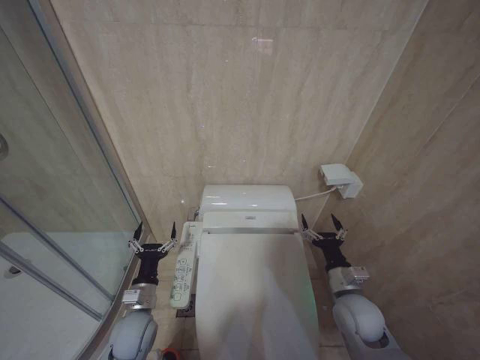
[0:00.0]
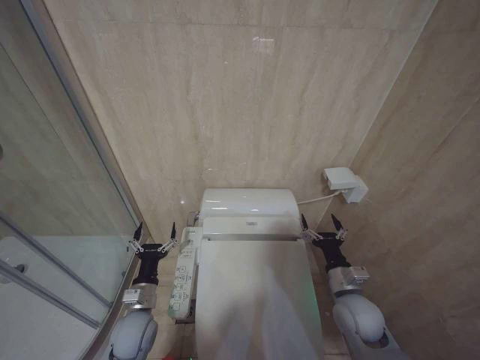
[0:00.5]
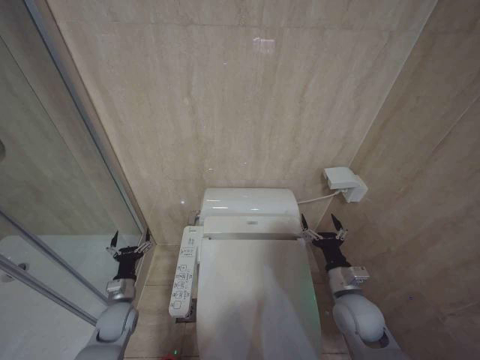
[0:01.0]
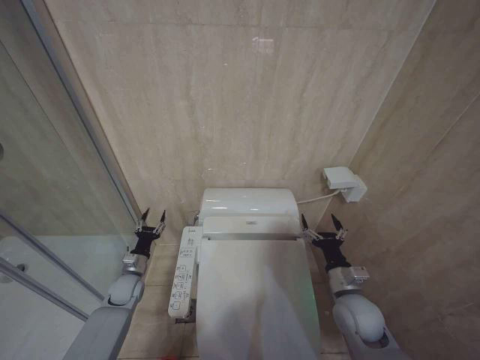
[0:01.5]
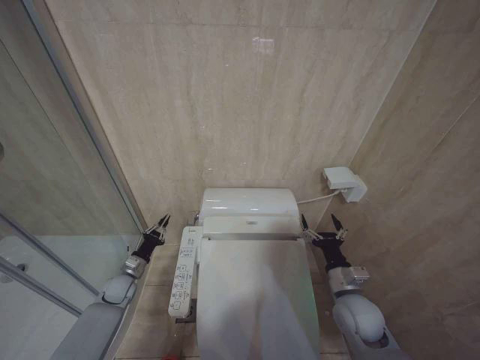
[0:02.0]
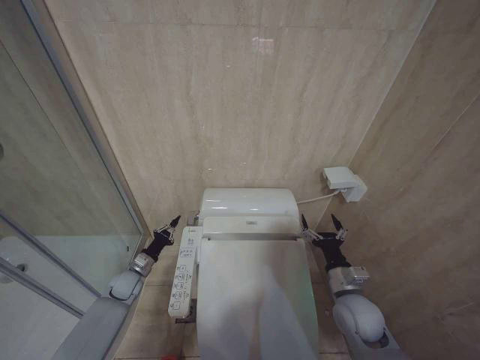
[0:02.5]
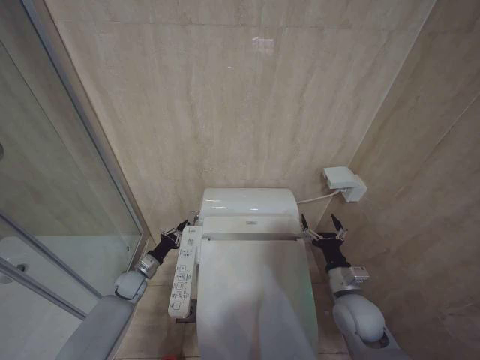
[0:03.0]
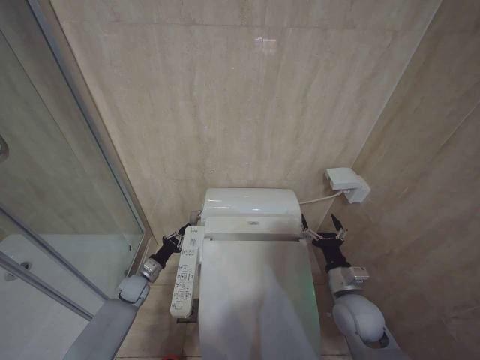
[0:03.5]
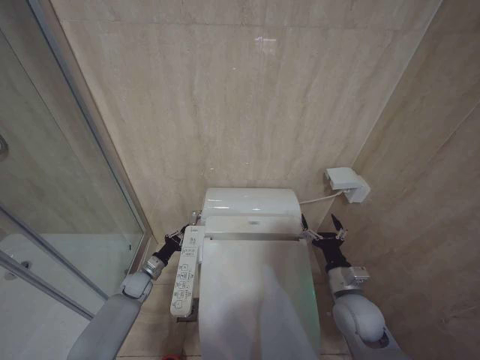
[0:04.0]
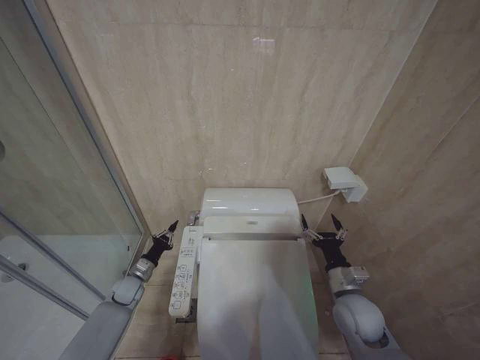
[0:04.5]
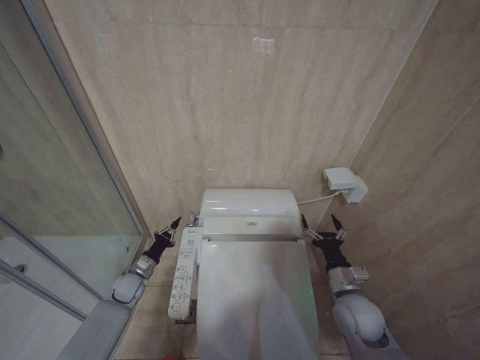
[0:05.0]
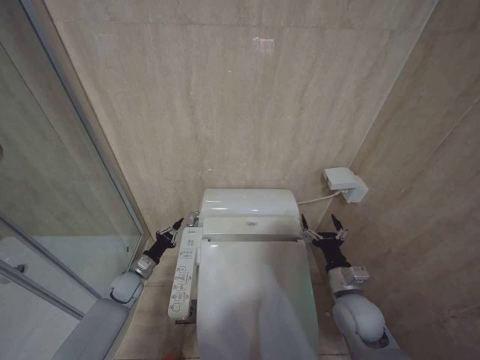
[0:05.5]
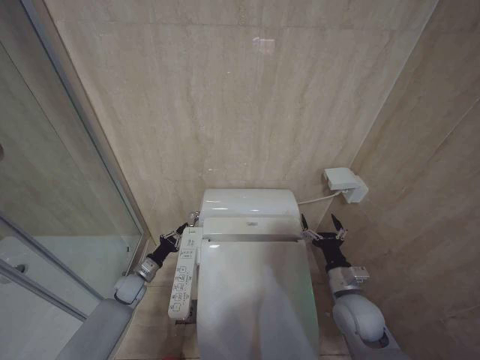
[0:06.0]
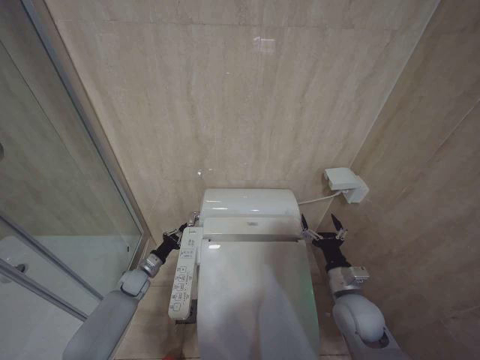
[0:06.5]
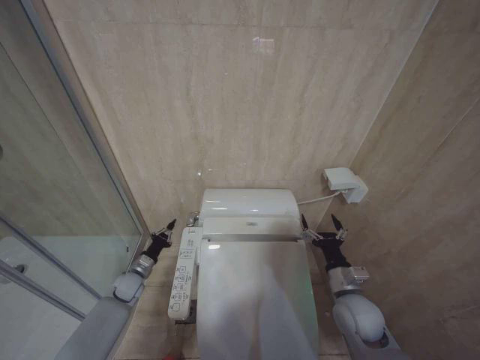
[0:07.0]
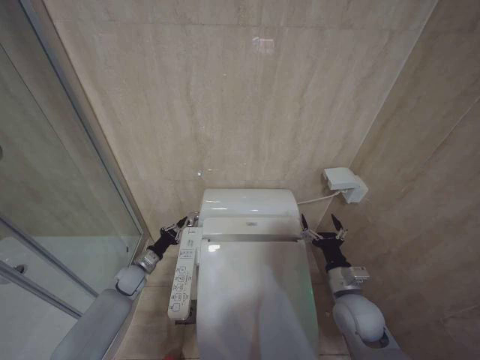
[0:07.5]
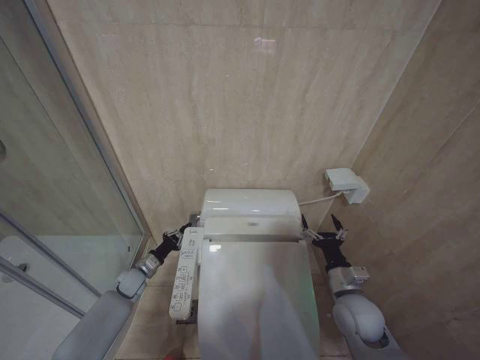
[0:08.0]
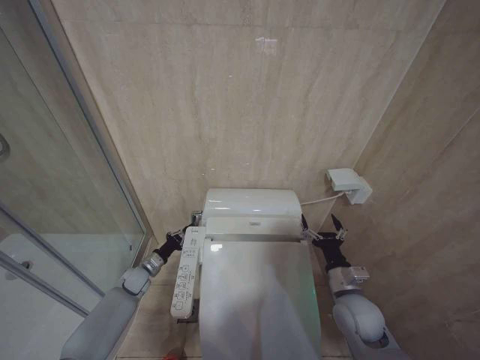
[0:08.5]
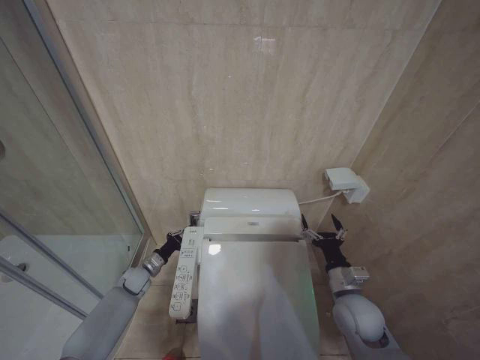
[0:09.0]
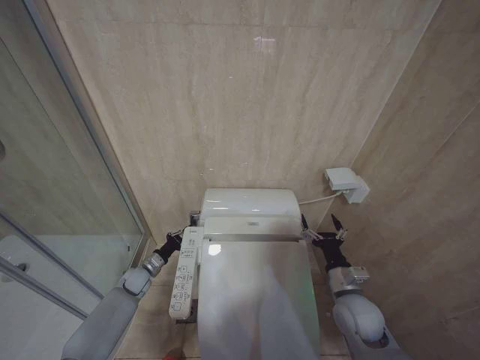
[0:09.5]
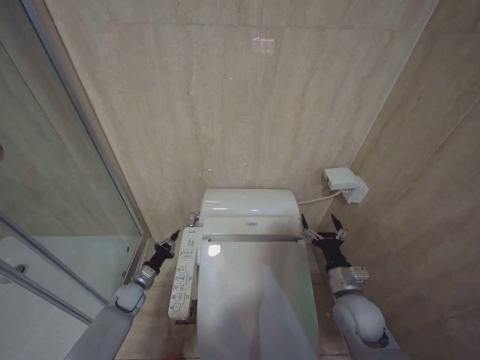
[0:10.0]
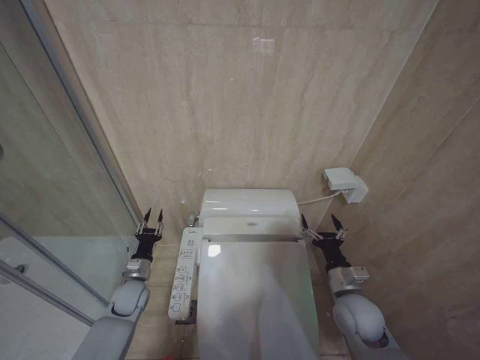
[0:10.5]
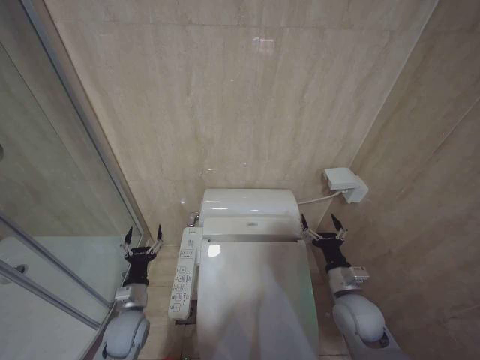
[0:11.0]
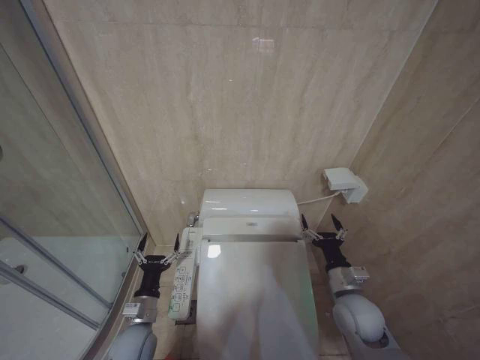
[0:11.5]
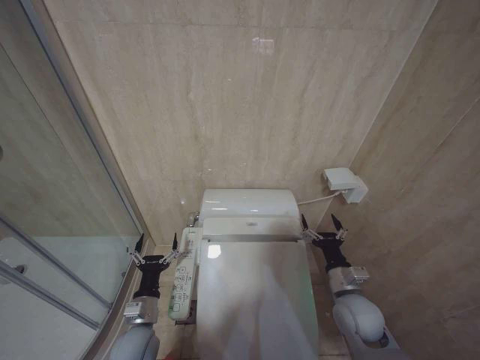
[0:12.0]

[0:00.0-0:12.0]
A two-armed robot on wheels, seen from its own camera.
Task of the whole recording: Open the toilet lid, clean the toilet bowl with a toilet brush, close the toilet lid, and flush.
0:00.0 to 0:02.0: The left gripper shifts some 20 cm forward, to the left and downward, and closes.
0:02.0 to 0:04.0: The left gripper ends up some 5 cm from where it was.
0:04.0 to 0:10.0: The grippers stay close to where they were, moving slightly.
0:10.0 to 0:12.0: The left gripper is displaced backward, to the right and upward by roughly 20 cm, and opens up.

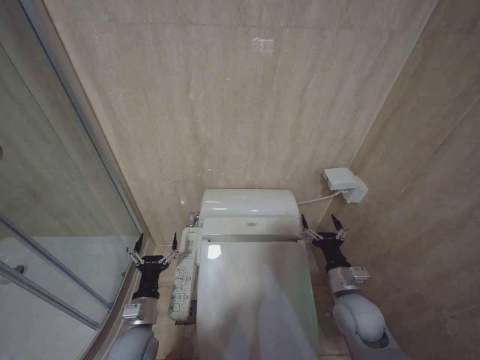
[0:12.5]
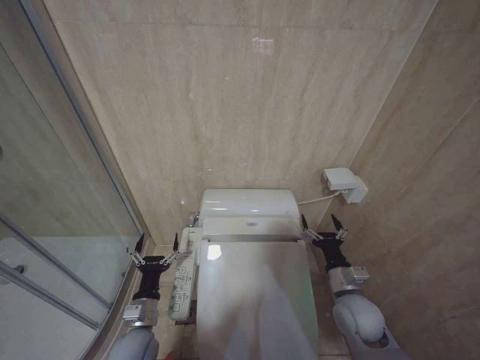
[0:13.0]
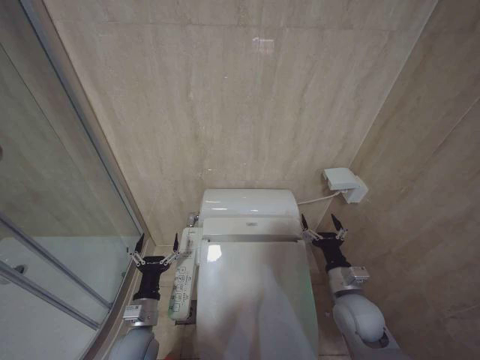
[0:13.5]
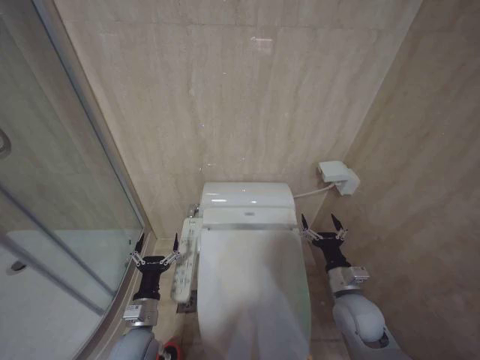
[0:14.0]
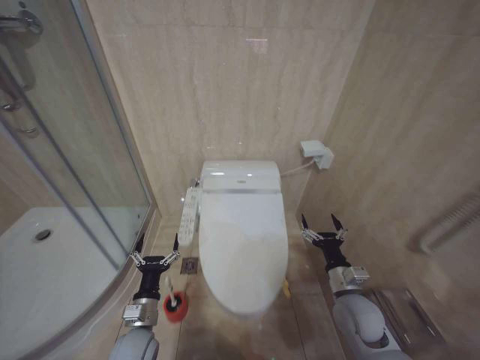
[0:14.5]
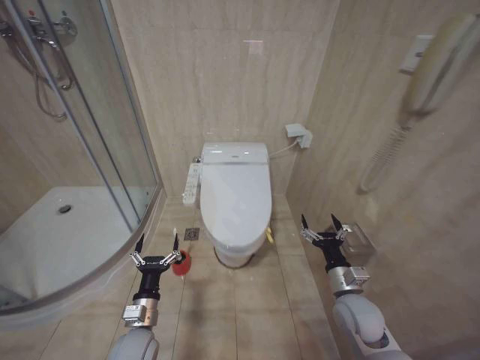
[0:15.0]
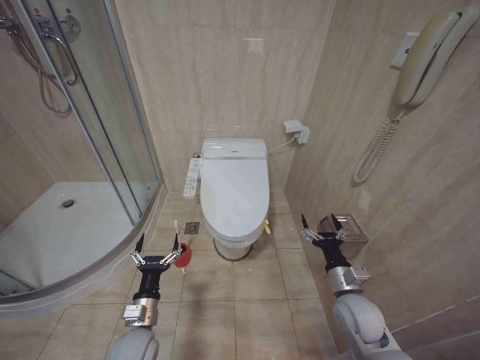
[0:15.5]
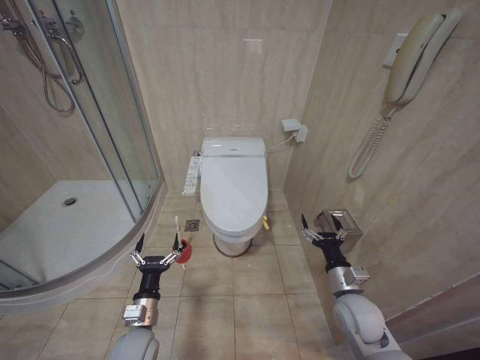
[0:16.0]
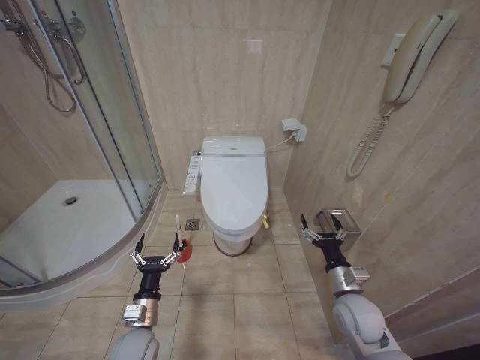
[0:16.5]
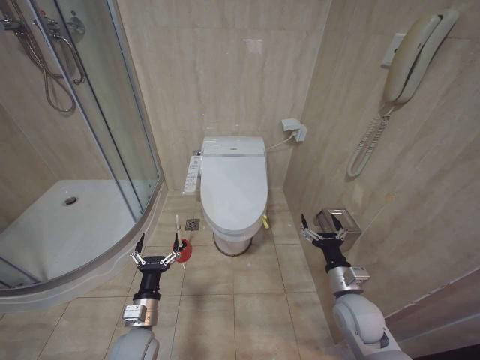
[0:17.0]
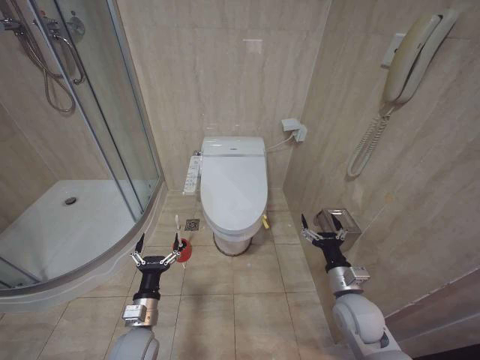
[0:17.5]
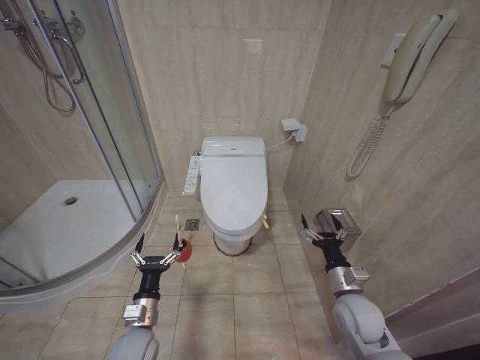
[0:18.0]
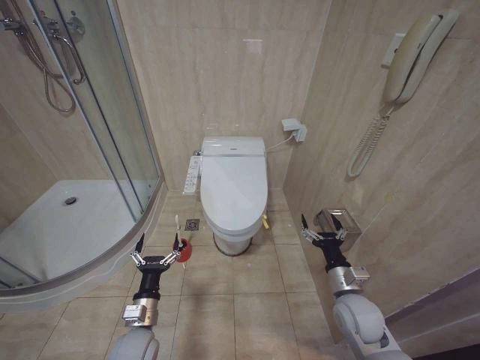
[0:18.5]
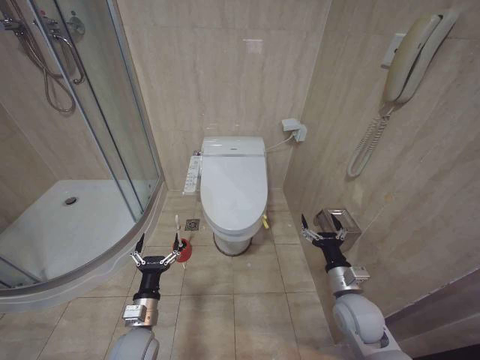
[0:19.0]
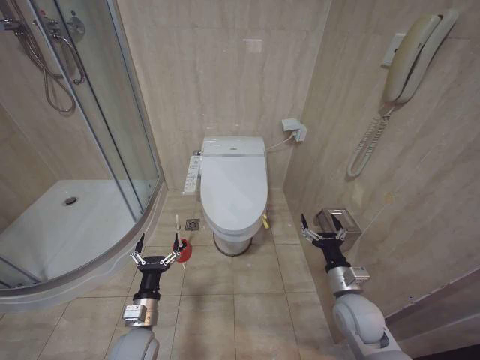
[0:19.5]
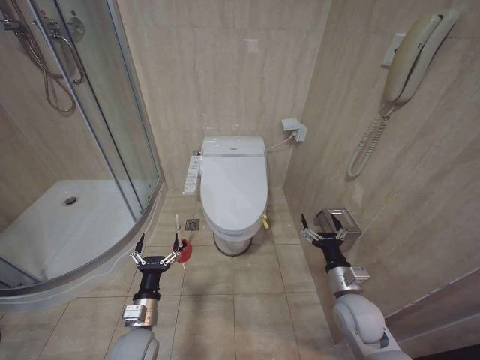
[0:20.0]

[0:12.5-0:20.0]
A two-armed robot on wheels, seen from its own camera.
Task of the whole recording: Open the toilet lid, clean the toilet bowl with a toilet brush, close the toilet lid, and flush.
0:16.5 to 0:20.0: Both grippers stay put.

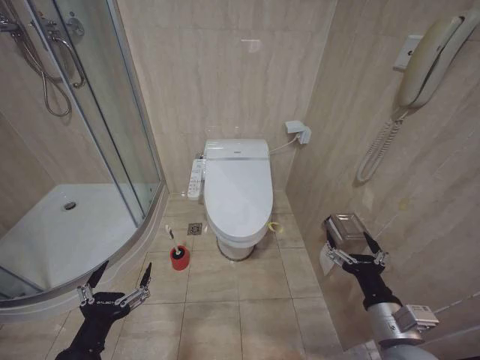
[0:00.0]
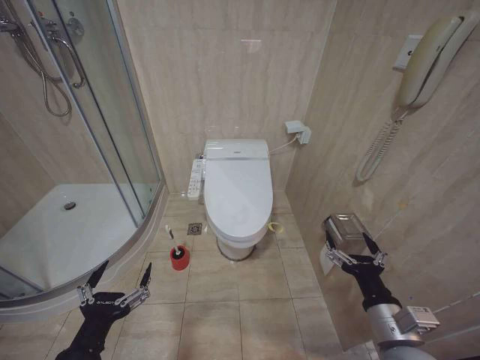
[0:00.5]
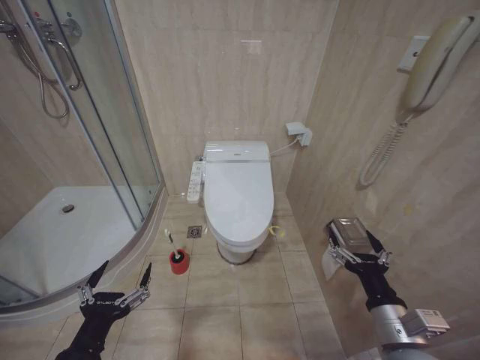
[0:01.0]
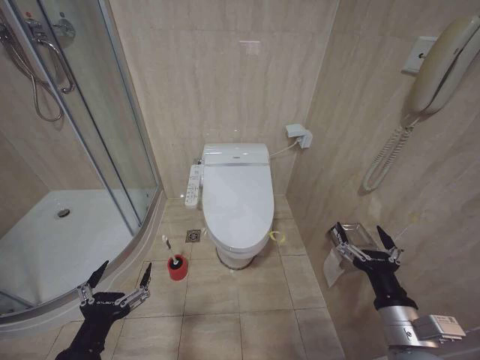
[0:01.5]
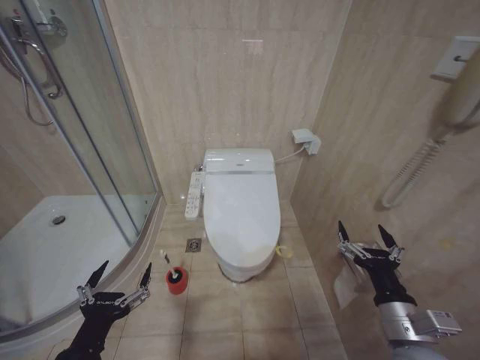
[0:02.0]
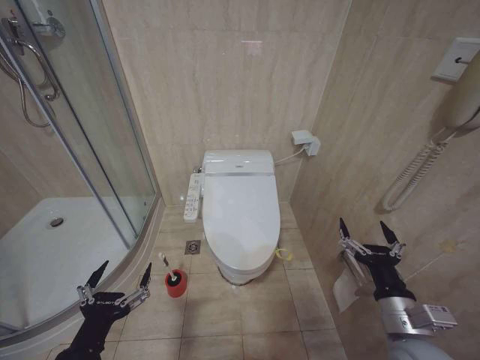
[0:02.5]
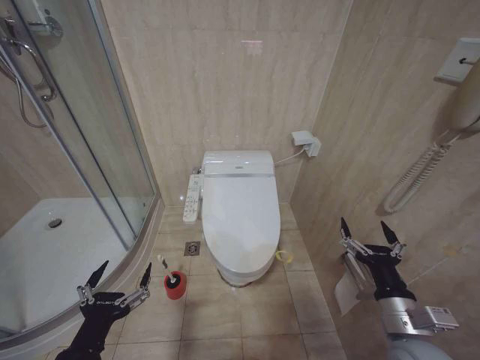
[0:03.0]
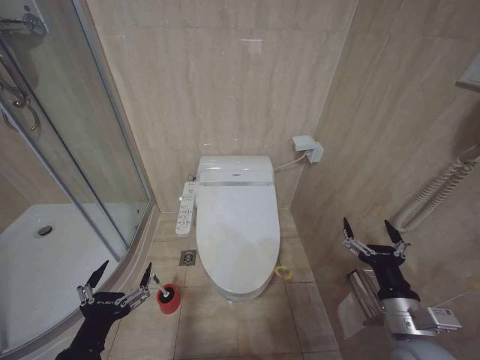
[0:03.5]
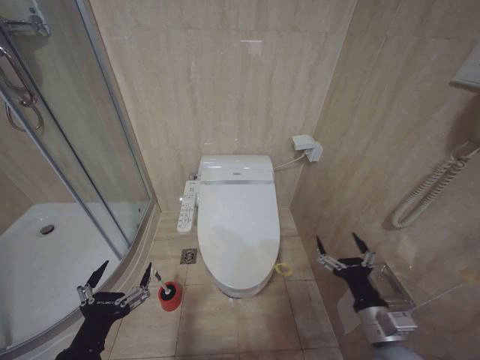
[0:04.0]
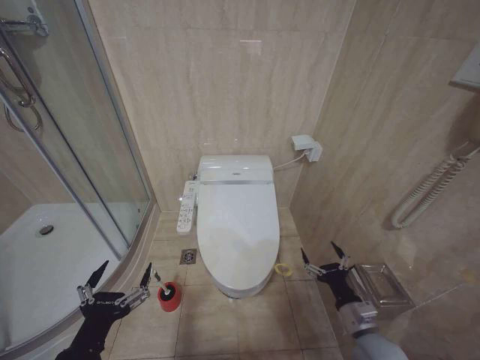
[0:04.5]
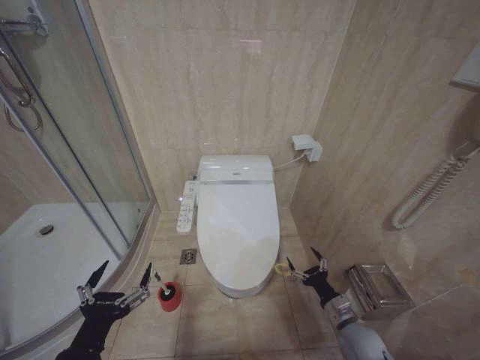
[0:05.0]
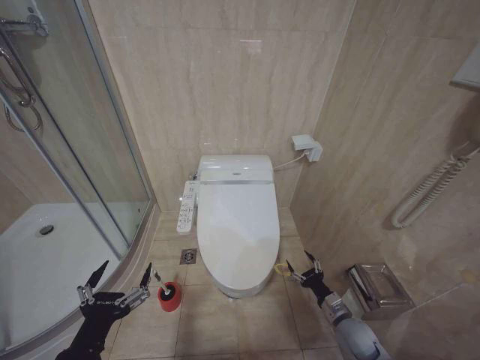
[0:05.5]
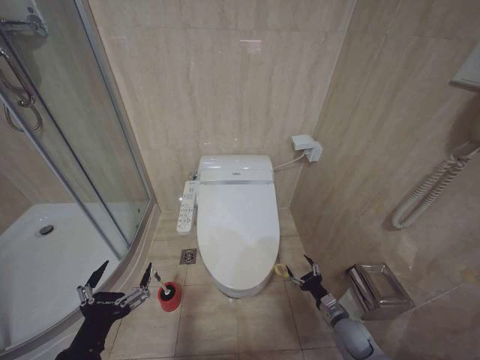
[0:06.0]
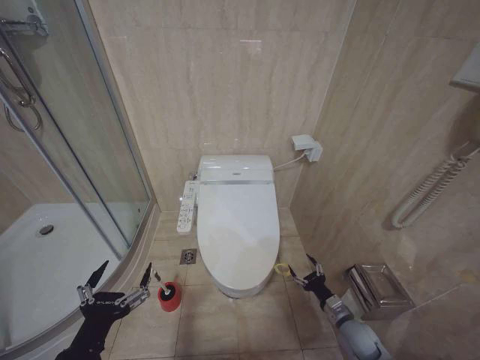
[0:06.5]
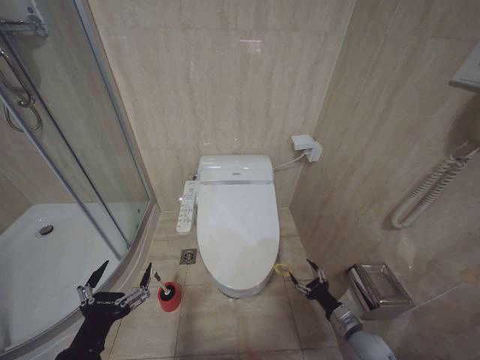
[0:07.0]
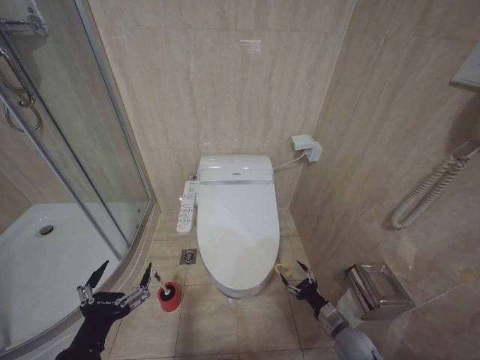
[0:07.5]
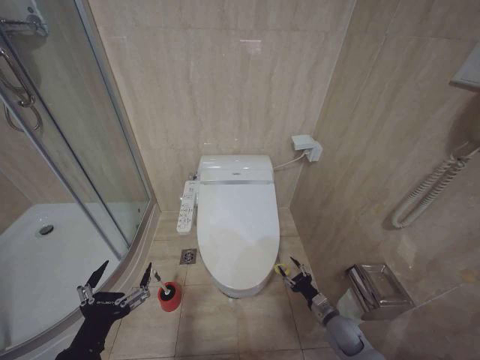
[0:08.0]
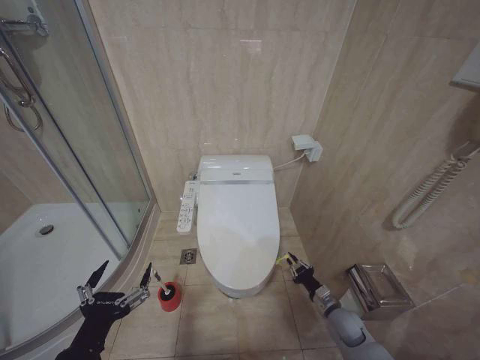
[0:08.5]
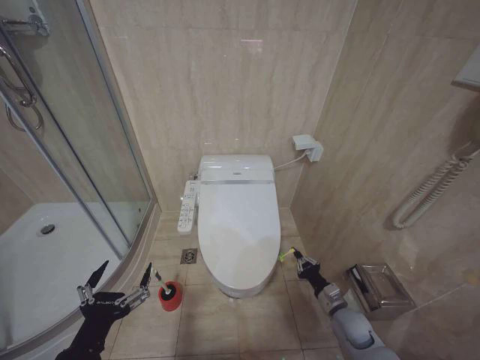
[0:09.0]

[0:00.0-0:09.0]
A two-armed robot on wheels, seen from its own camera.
Task of the whole recording: Open the toilet lid, clean the toilet bowl with a toilet brush, close the toilet lid, and flush.
0:02.0 to 0:04.5: The right gripper shifts roughly 10 cm downward.
0:04.5 to 0:07.0: The right gripper moves downward, roughly 10 cm.
0:07.0 to 0:09.0: The right gripper moves forward, about 5 cm, and closes its fingers.
